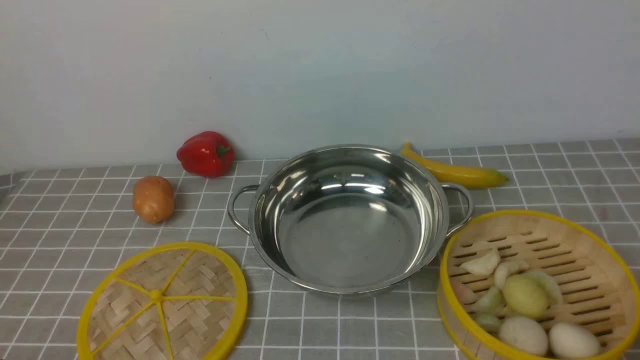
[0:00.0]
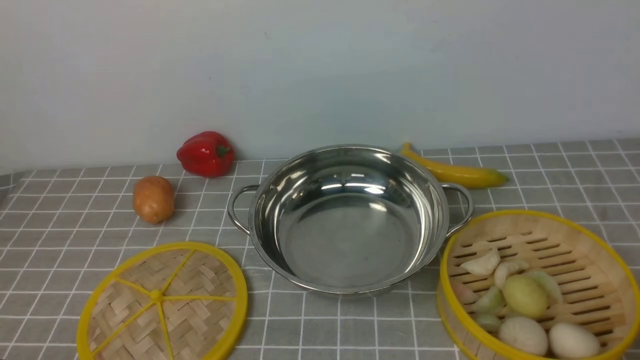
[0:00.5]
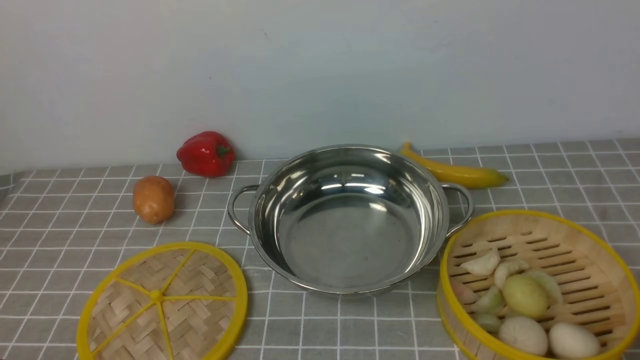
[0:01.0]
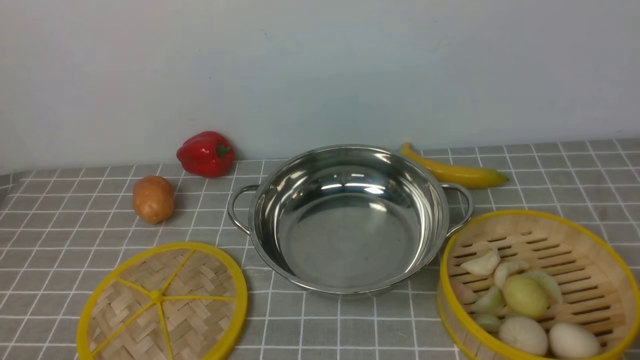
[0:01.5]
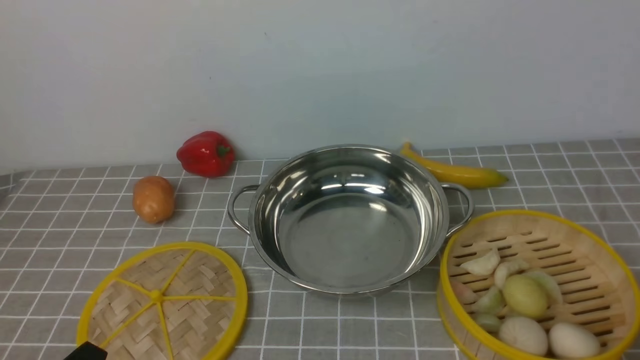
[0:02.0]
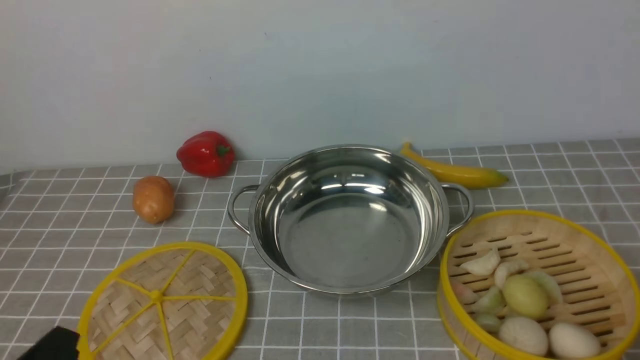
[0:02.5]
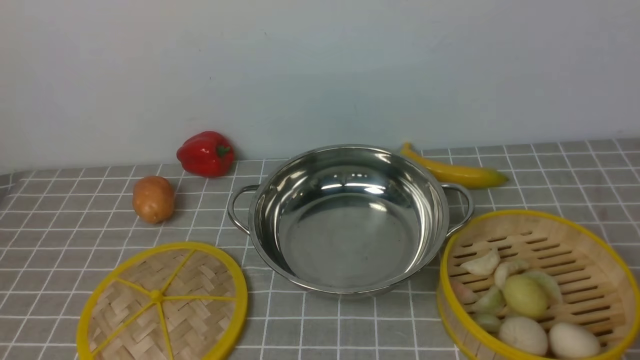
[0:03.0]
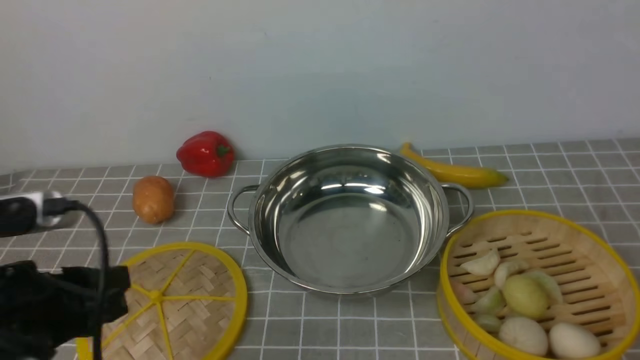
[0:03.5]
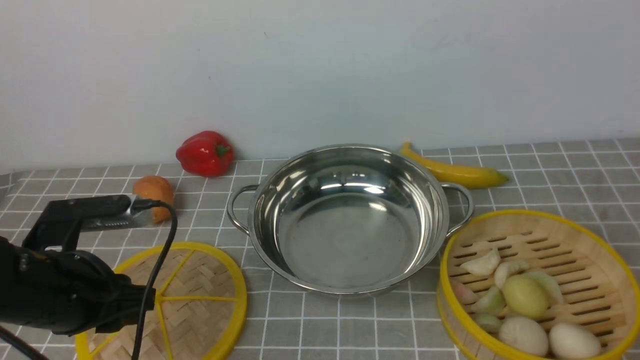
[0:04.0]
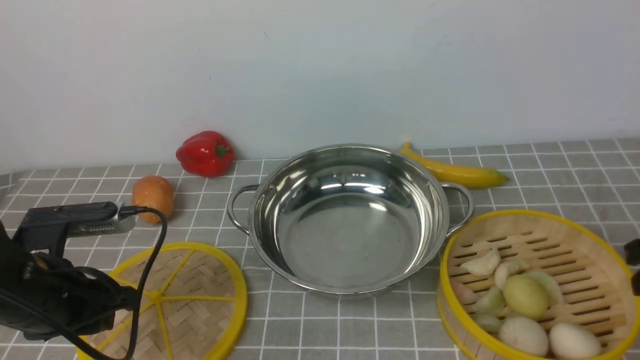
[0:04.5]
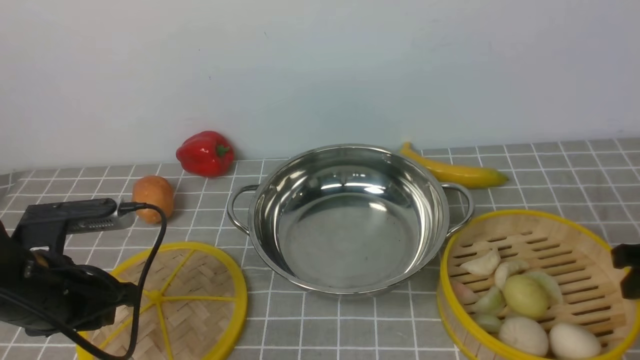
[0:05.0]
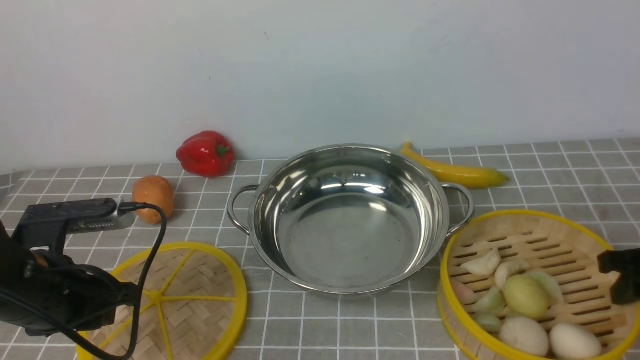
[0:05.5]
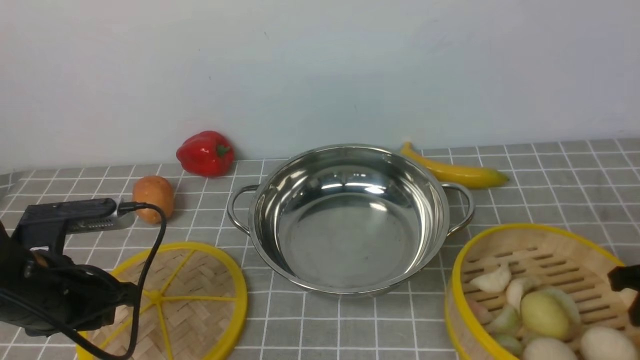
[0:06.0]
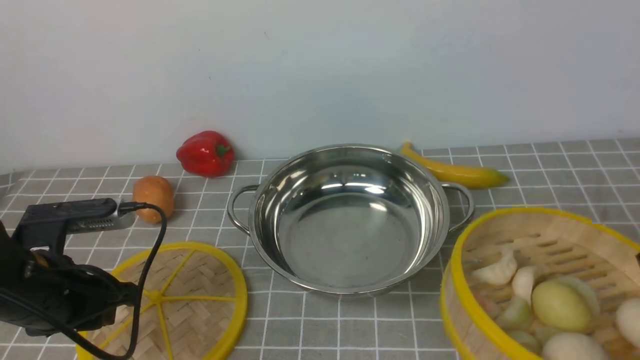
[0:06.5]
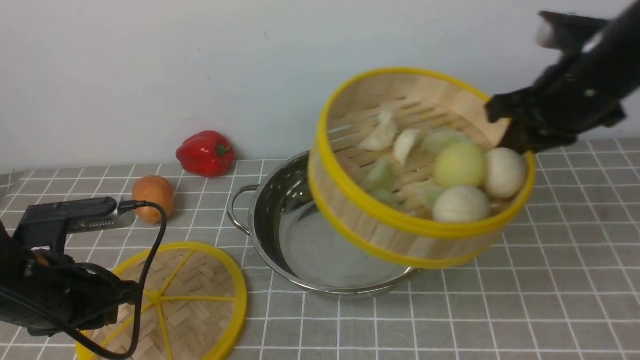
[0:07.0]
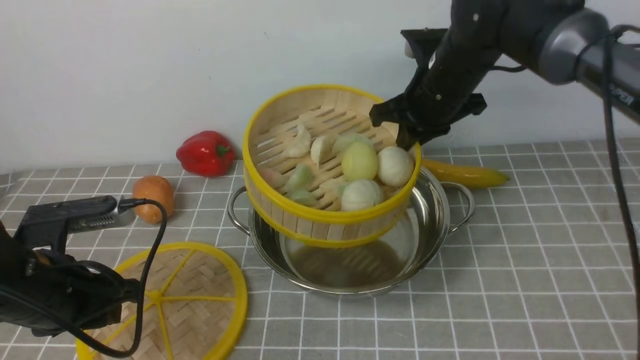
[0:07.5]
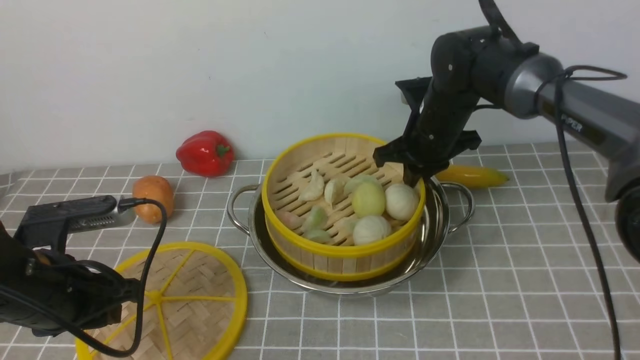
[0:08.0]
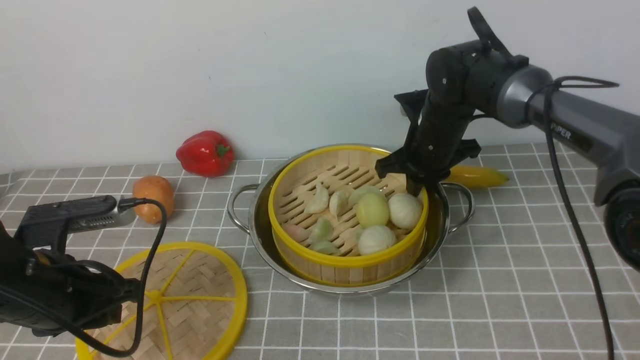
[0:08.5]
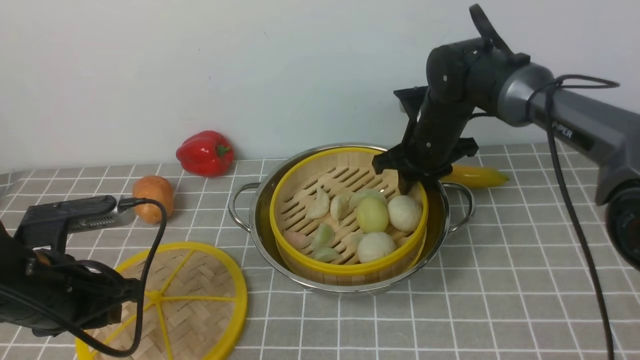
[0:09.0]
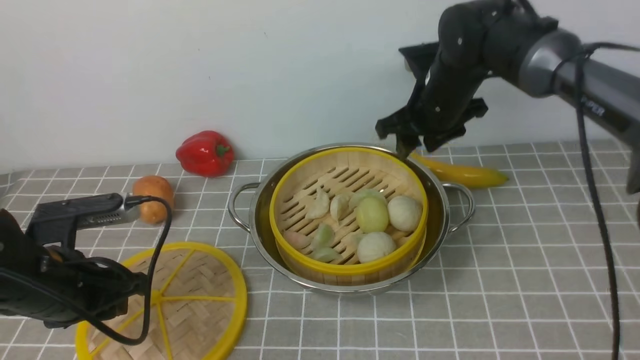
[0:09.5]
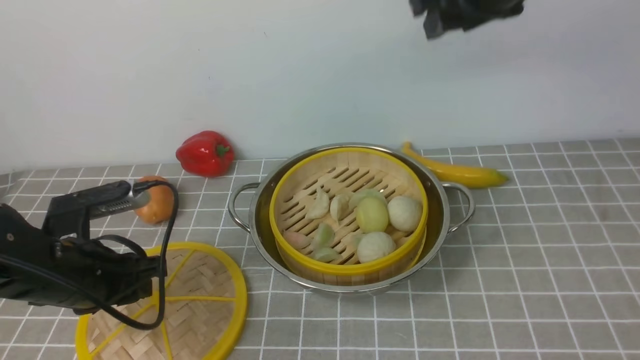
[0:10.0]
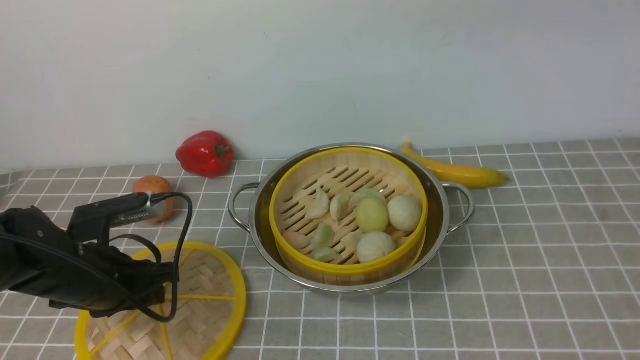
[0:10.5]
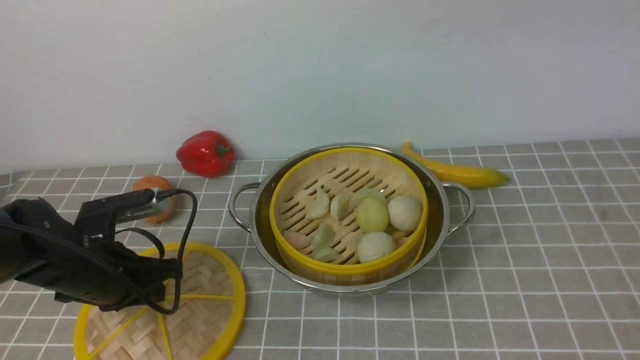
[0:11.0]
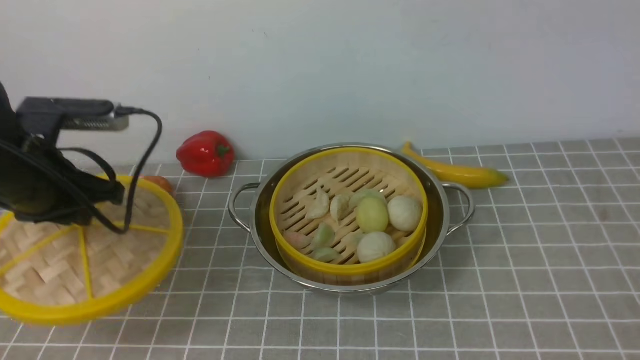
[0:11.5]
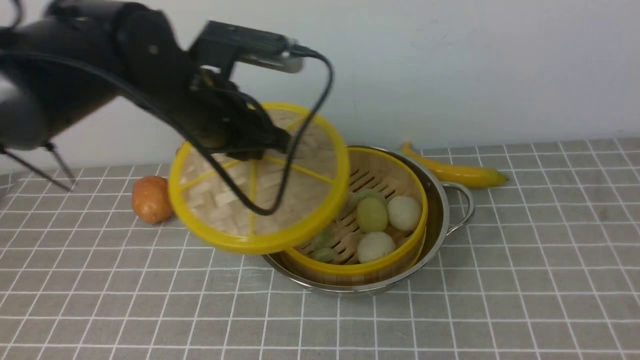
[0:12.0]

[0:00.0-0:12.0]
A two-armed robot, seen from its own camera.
Task of the whole recording: place the steamer in the pot on the grey tablecloth, and put the lid on the steamer.
Step, 0:00.0 to 0:05.5: use the right arm to lift the steamer closest to it.
Step, 0:06.5 to 0:09.0: use the right arm to put the steamer into the iron steamer pot in the middle.
Step, 0:09.5 to 0:11.0: use the left arm to lift the lid of the steamer.
0:02.0 to 0:04.0: The left gripper goes about 15 cm forward.
0:04.0 to 0:06.0: The right gripper heads downward, covering roughly 10 cm, and closes up.
0:06.0 to 0:08.0: The right gripper travels to the left and forward by some 30 cm.
0:08.0 to 0:10.0: The right gripper travels upward by approximately 20 cm, and opens.
0:10.0 to 0:12.0: The right gripper is displaced backward, to the right and upward by roughly 35 cm; the left gripper moves to the right, upward and forward, about 20 cm.

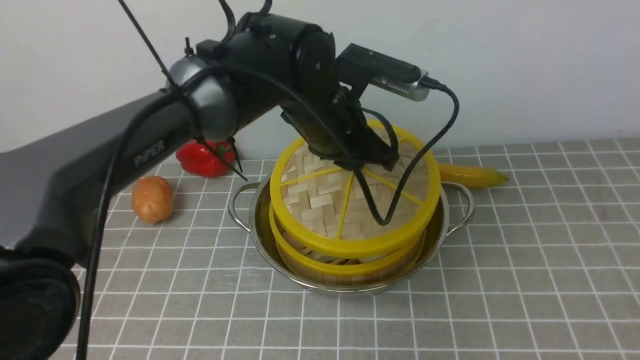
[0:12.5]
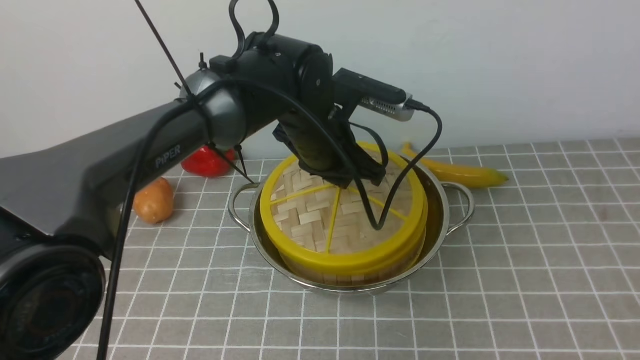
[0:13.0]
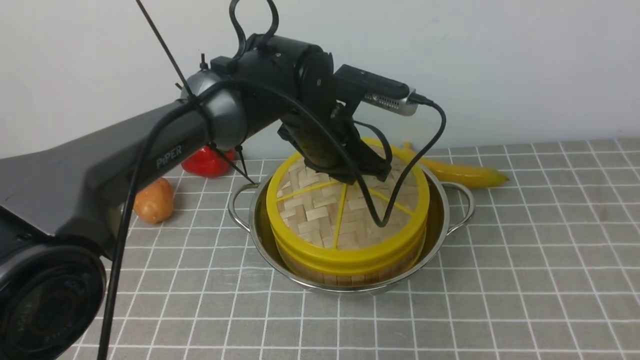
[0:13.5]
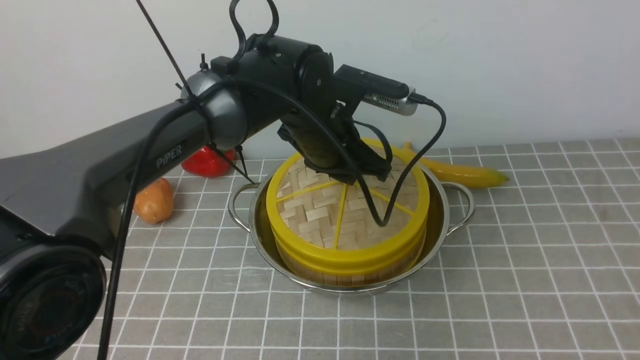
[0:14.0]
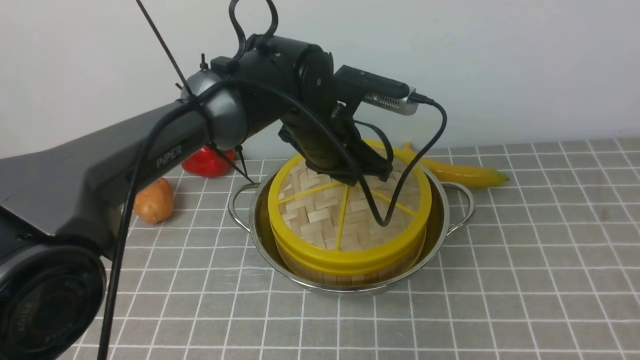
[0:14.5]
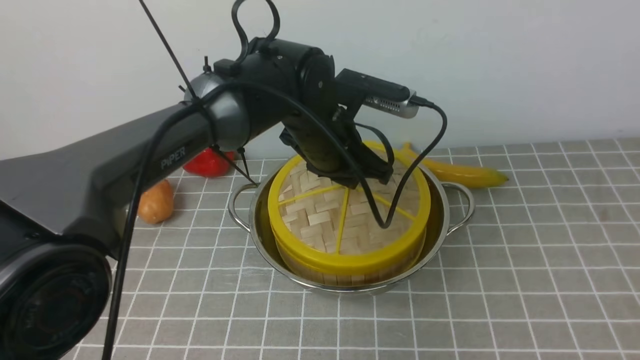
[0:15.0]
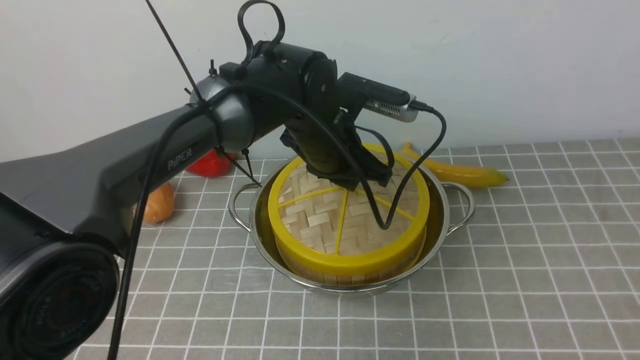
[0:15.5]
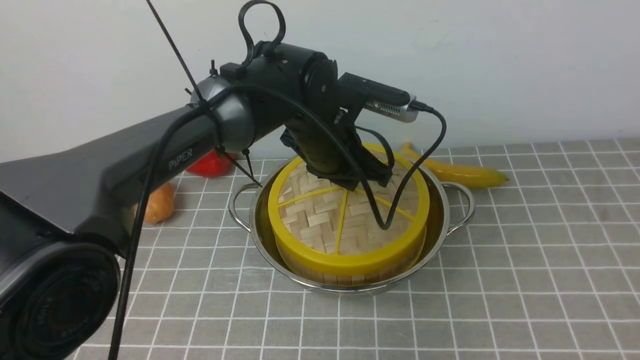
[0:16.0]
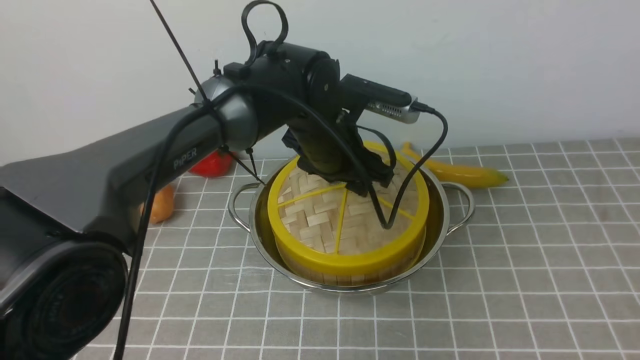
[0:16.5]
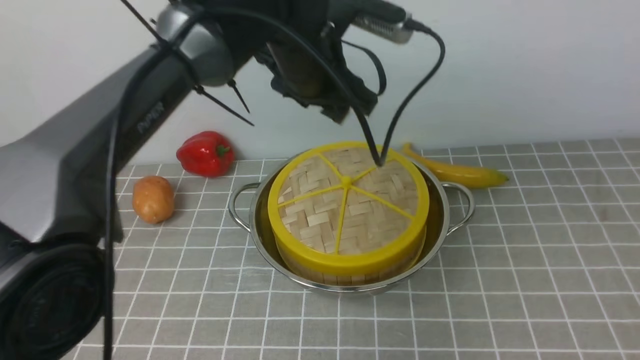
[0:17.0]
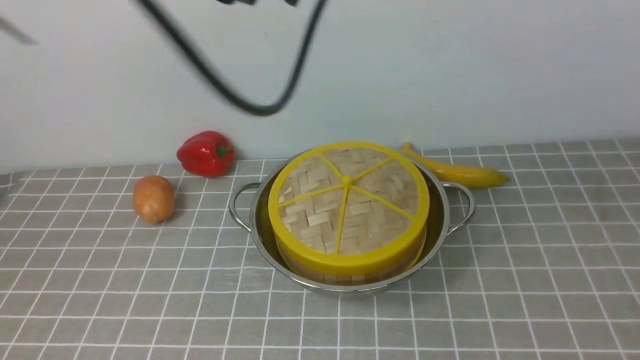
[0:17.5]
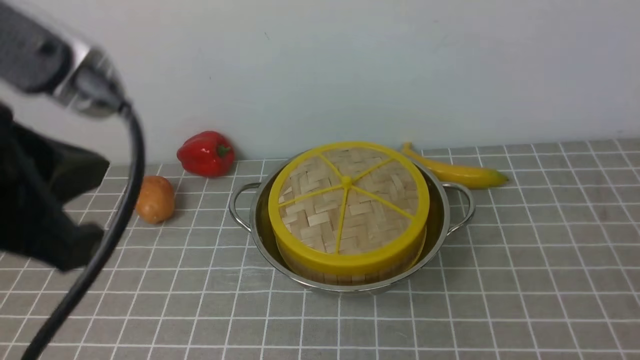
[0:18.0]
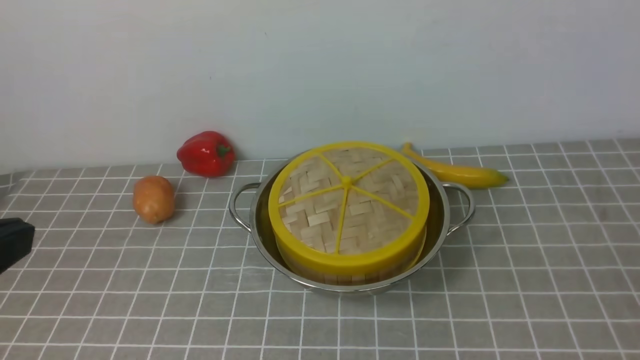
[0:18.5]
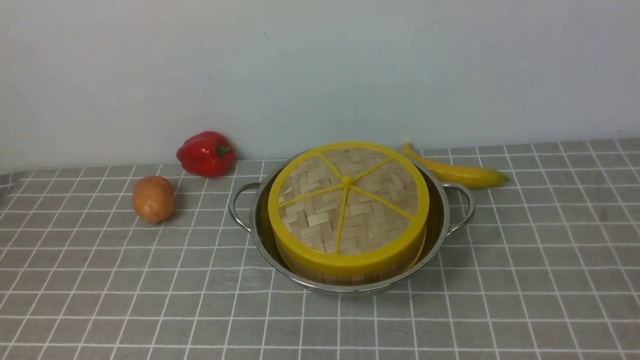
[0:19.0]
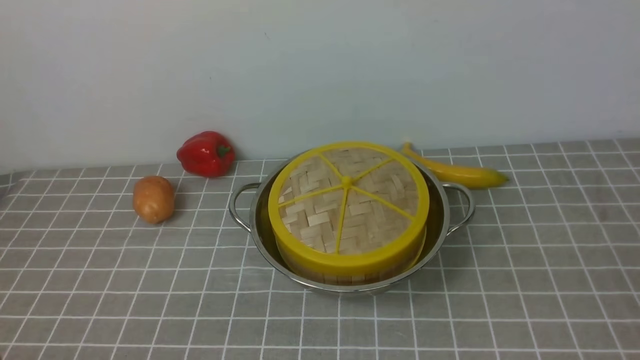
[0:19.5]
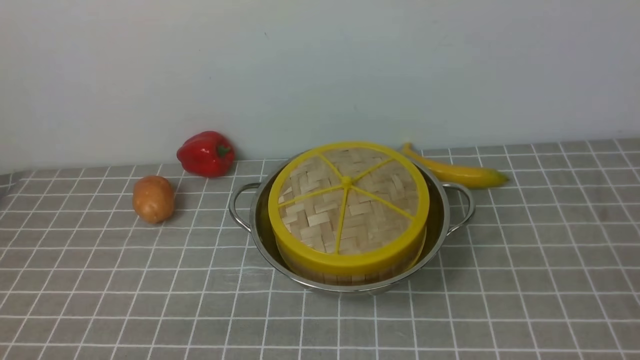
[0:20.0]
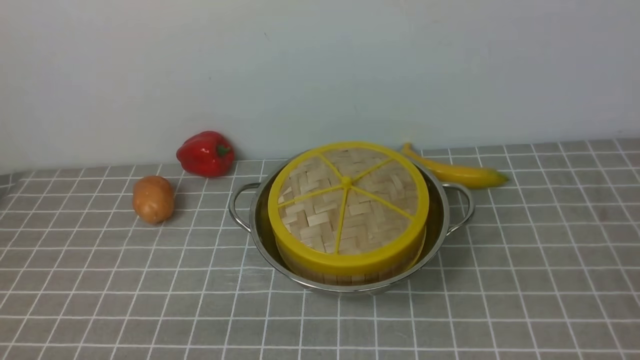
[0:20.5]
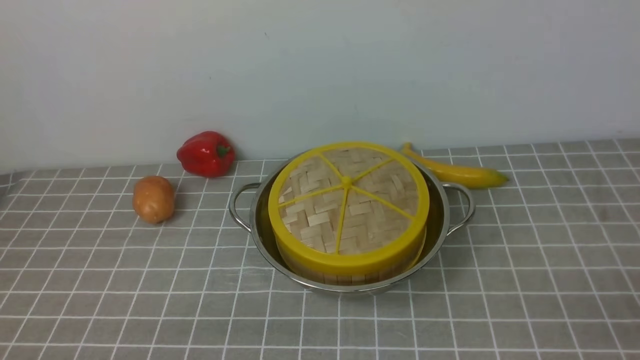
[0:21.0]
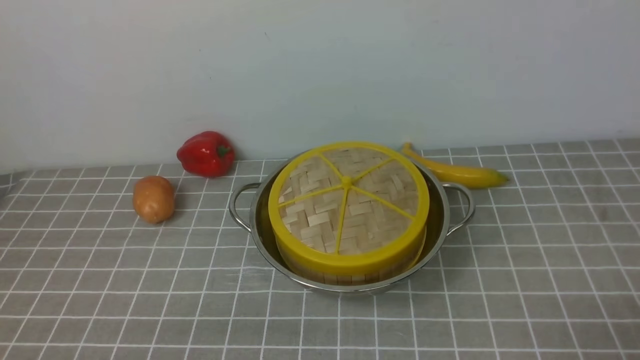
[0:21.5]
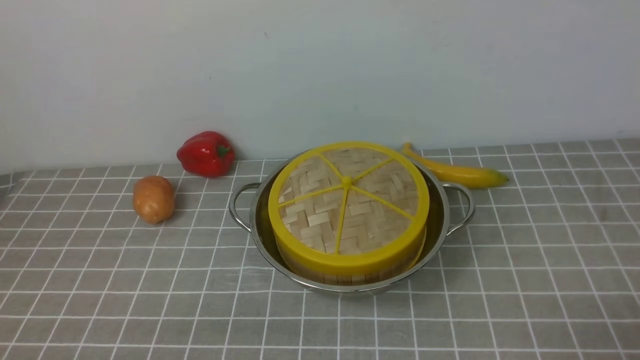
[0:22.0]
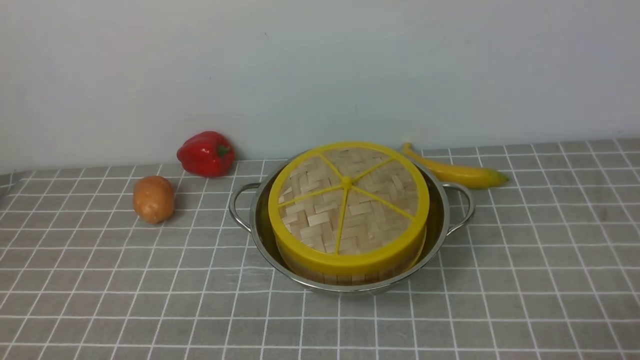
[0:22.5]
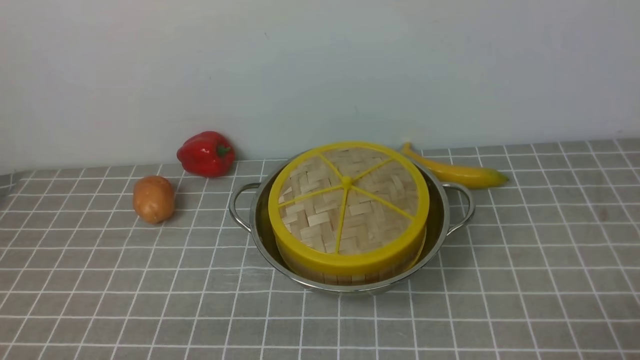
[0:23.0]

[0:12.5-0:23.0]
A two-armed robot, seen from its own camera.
Task of the whole recording: place the steamer in the pot on the grey tablecloth, and put the lid on the steamer.
Step, 0:12.5 to 0:16.5: use the left arm to place the steamer lid on the steamer.
0:12.5 to 0:14.5: There are only small adjustments of the grippers.
0:14.5 to 0:16.5: The left gripper opens up.
0:16.5 to 0:19.0: The left gripper is displaced backward and to the left by about 40 cm, and closes up. Meanwhile the right gripper travels downward by roughly 20 cm, and closes its fingers.
